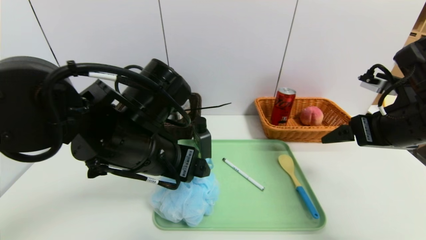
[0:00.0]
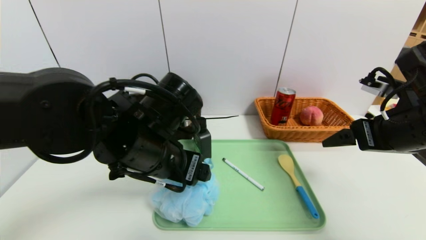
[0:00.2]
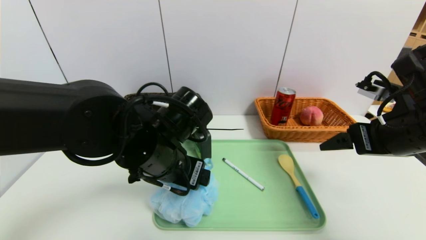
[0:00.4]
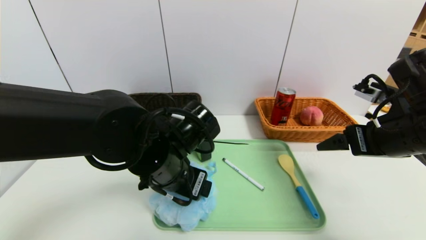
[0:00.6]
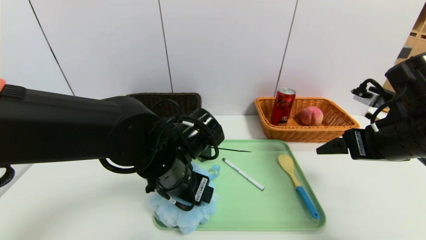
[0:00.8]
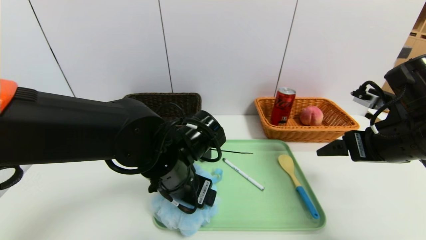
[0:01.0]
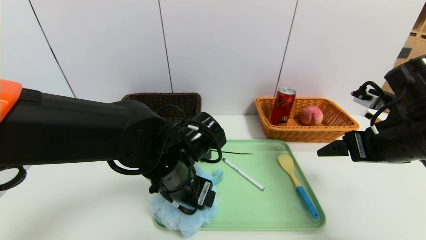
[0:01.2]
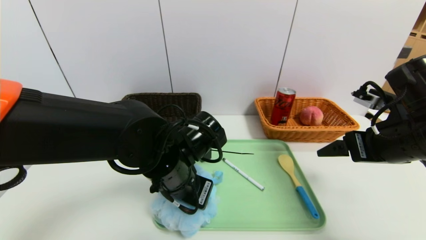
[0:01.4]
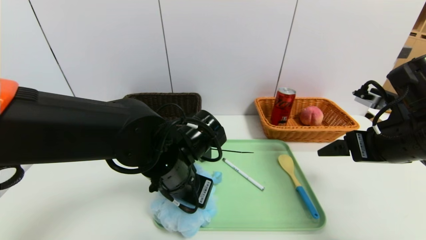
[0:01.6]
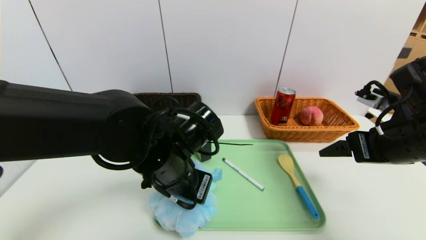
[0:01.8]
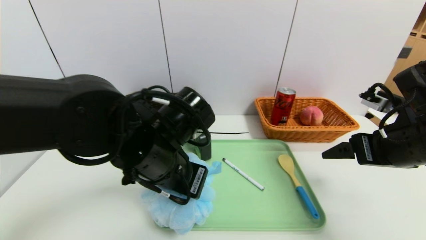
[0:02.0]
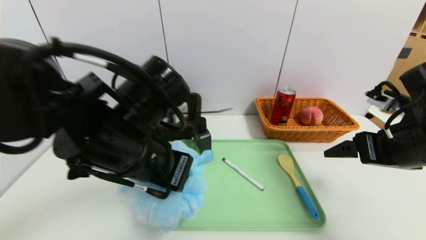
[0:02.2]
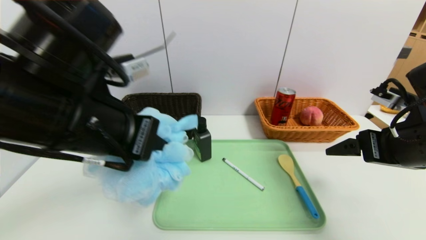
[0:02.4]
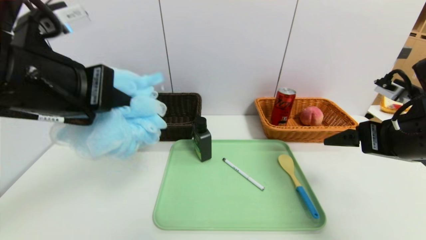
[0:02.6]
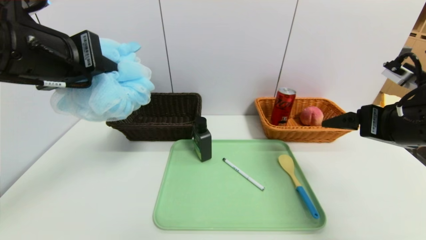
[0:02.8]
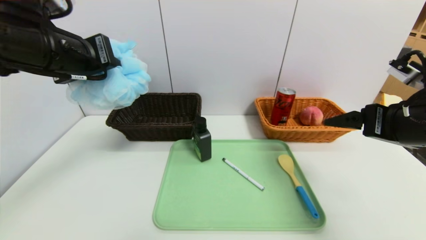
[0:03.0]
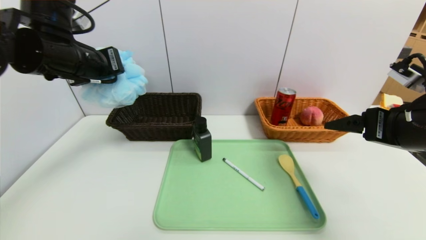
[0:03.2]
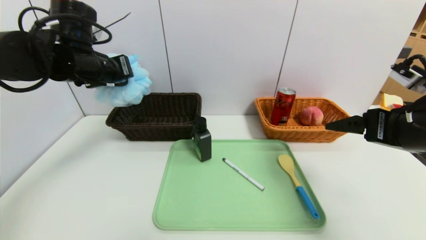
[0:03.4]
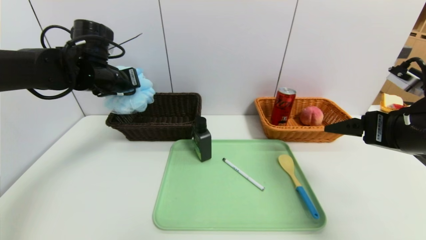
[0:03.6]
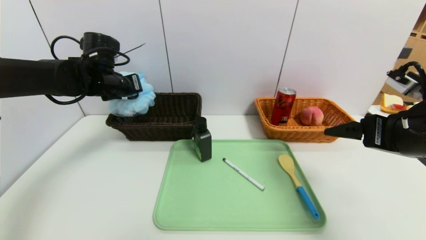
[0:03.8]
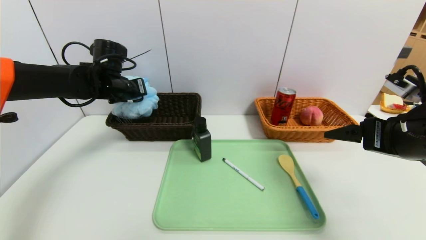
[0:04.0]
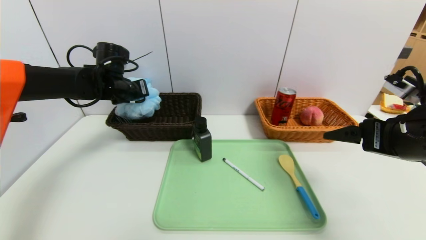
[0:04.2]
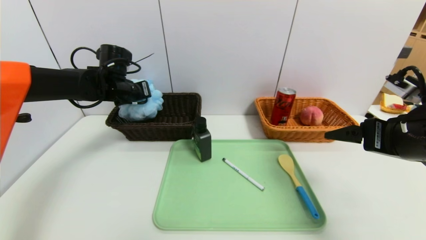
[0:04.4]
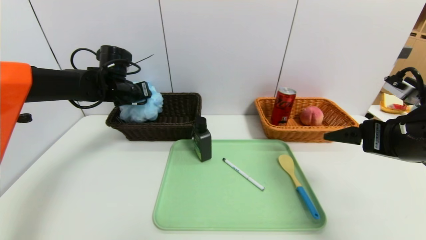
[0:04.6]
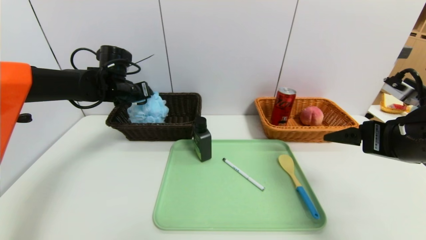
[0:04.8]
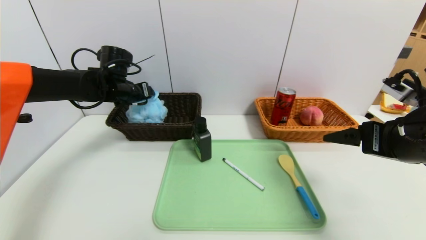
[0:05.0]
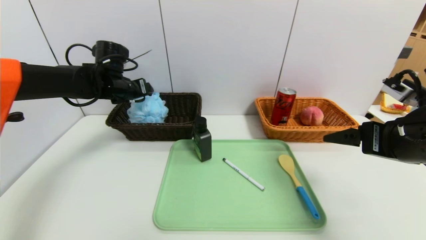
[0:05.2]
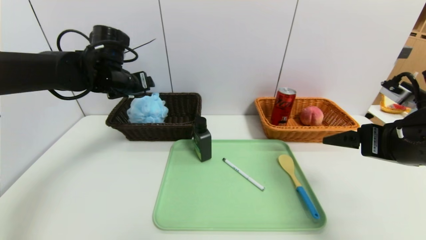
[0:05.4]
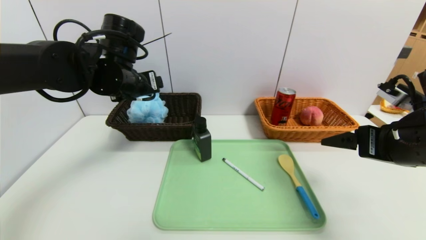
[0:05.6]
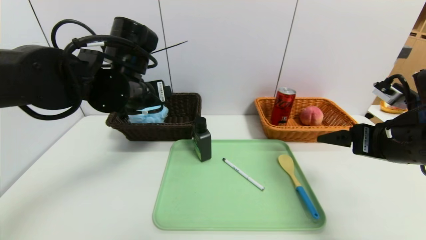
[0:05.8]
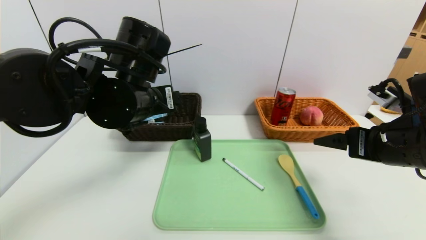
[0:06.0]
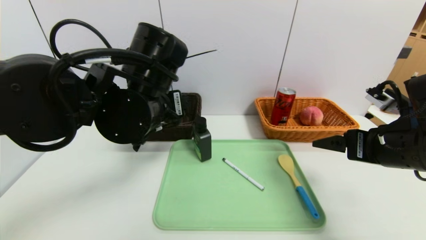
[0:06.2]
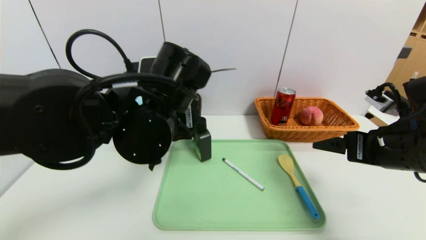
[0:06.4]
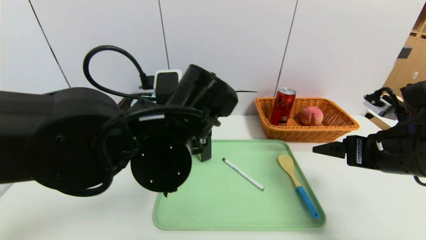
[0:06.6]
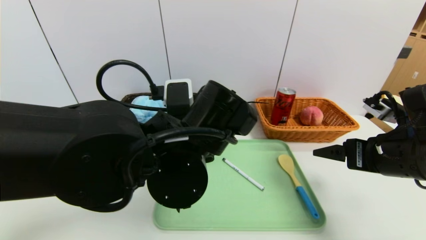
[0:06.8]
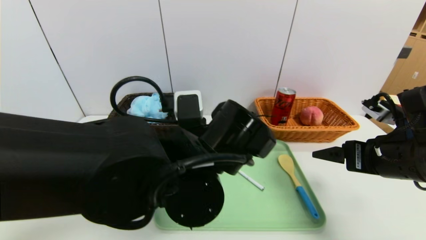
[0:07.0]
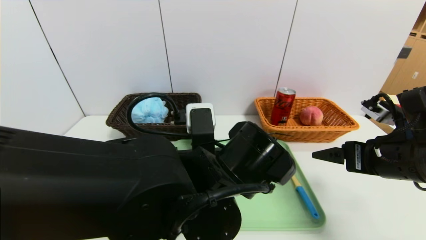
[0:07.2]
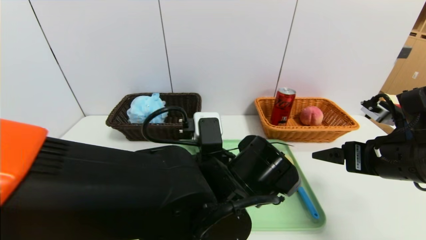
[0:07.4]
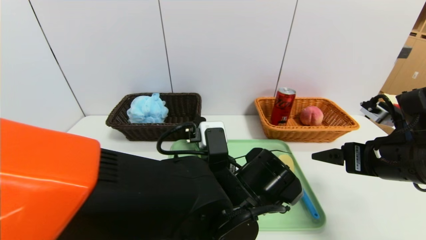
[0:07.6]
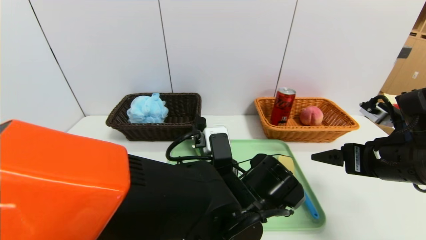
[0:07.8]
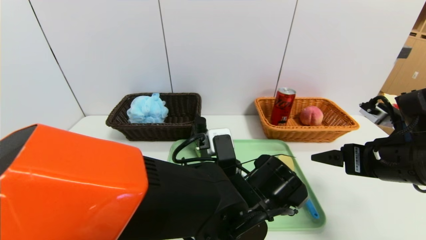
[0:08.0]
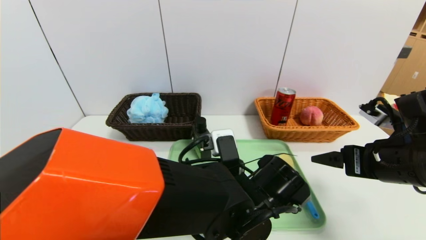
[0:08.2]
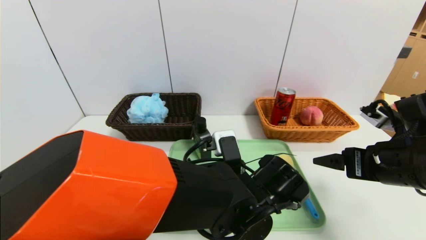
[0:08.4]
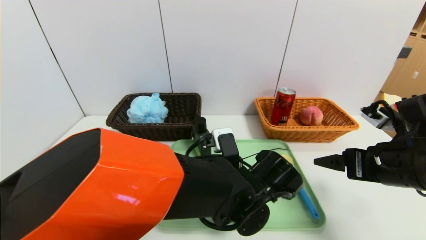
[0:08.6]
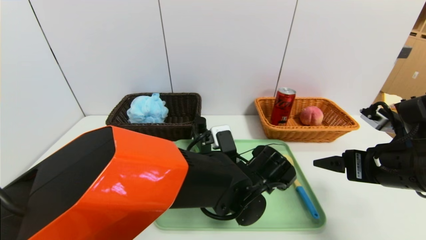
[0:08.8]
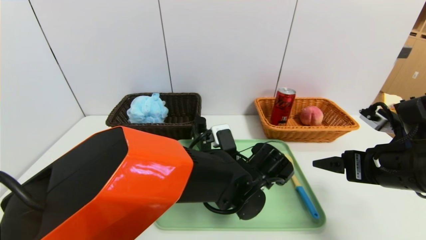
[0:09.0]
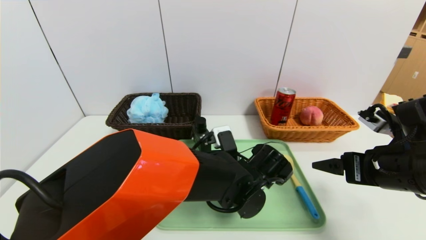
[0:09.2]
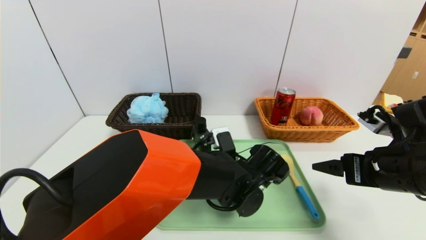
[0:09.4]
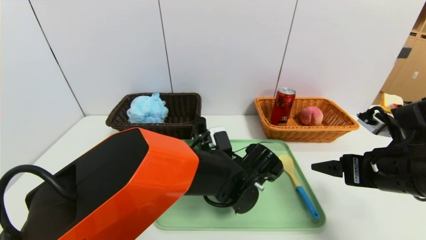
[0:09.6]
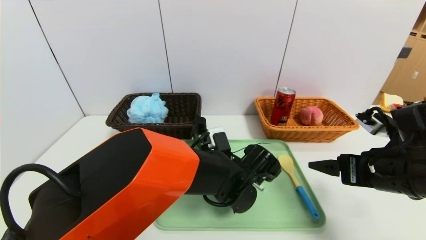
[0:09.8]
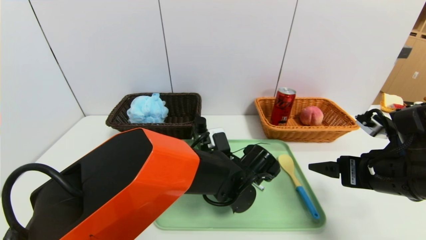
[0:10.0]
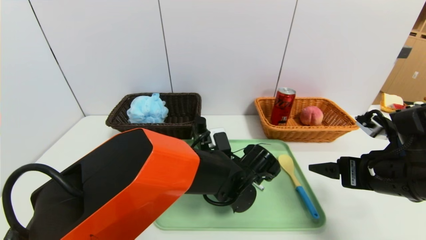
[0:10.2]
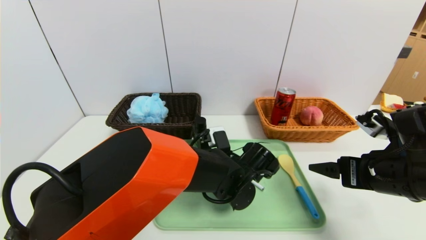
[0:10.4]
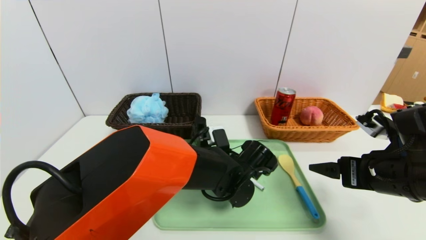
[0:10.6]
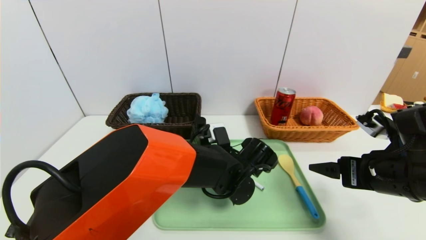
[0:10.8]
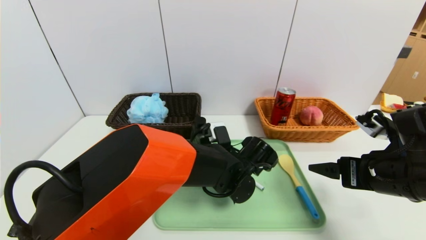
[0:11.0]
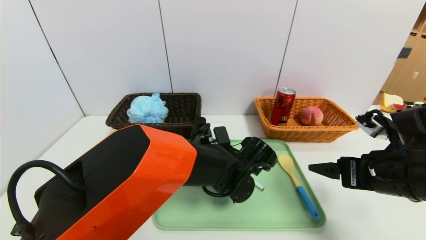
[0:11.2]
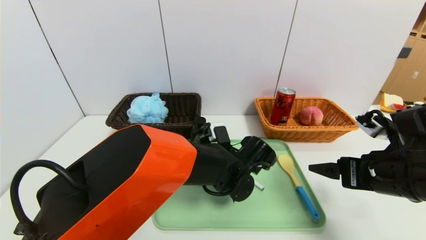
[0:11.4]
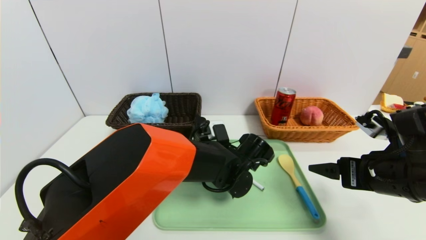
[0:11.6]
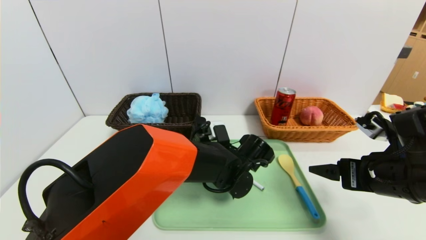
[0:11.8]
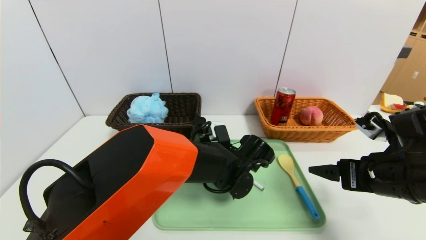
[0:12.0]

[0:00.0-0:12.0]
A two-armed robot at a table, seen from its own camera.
Task of the whole recording: place the food in the right basket with the right gripper, and place the non food items in the left basket with the left gripper.
Step, 0:00.0 to 0:05.0: Grasp the bath ball and put it in the left basket.
0:00.0 to 0:01.6: The left gripper shifts approximately 5 cm downward, and closes up.
0:01.6 to 0:03.0: The left gripper shifts about 25 cm upward and to the left.
0:03.0 to 0:04.4: The left gripper goes some 20 cm forward and downward.
0:04.4 to 0:06.0: The left gripper moves backward and to the right, roughly 20 cm, and opens.
0:06.0 to 0:07.6: The left gripper is displaced to the right, downward and backward by roughly 20 cm.
0:07.6 to 0:09.0: The left gripper goes roughly 5 cm forward.
0:09.0 to 0:12.0: The grippers make only small movements.

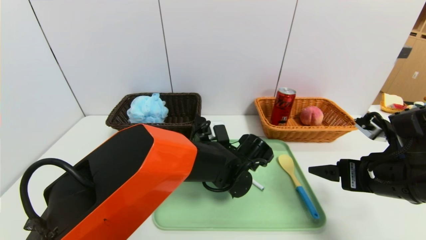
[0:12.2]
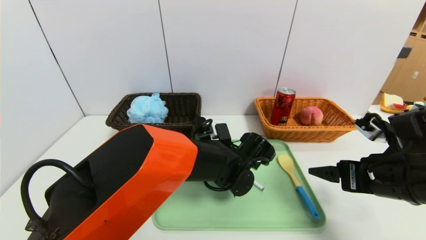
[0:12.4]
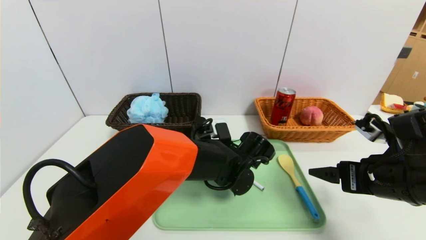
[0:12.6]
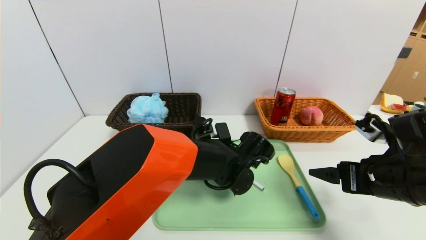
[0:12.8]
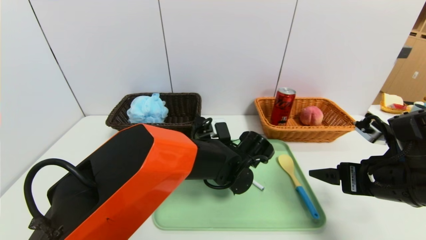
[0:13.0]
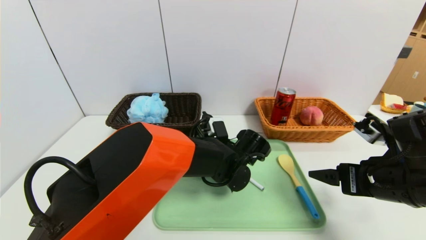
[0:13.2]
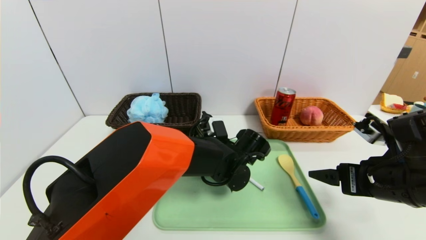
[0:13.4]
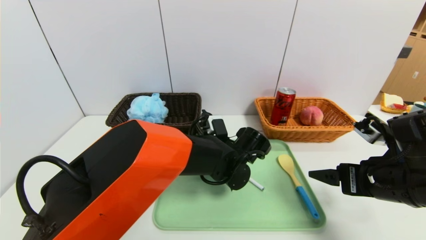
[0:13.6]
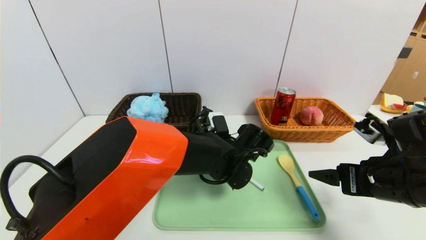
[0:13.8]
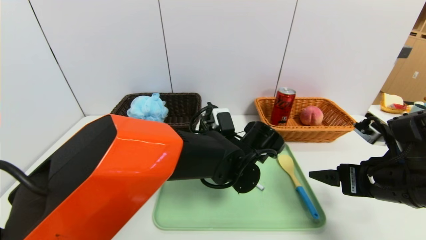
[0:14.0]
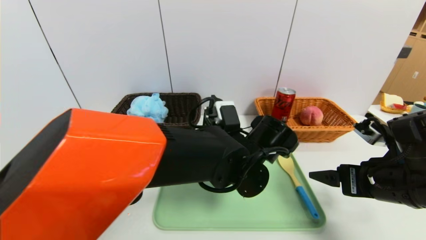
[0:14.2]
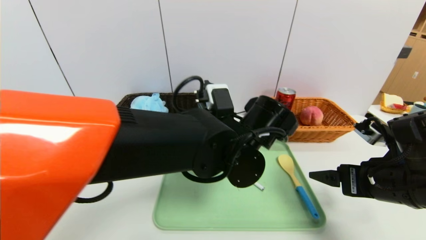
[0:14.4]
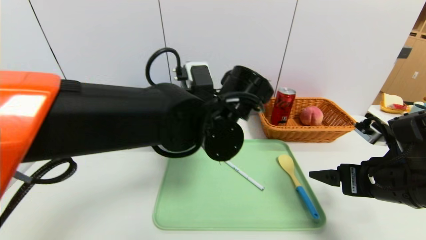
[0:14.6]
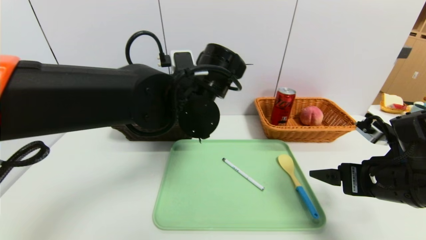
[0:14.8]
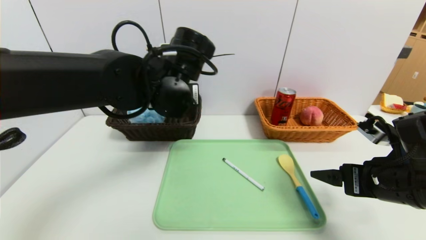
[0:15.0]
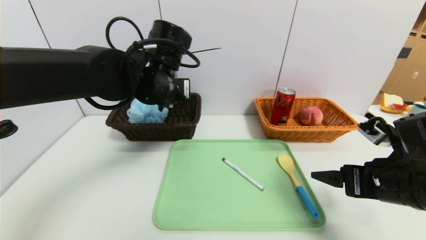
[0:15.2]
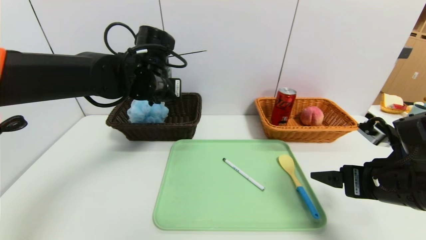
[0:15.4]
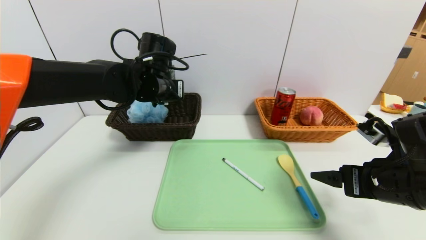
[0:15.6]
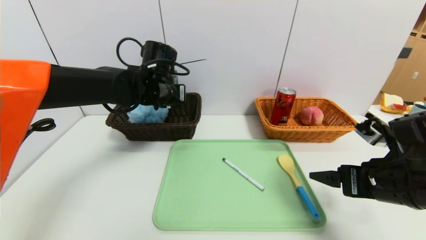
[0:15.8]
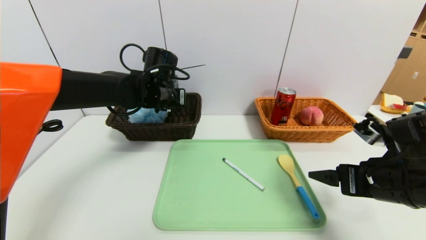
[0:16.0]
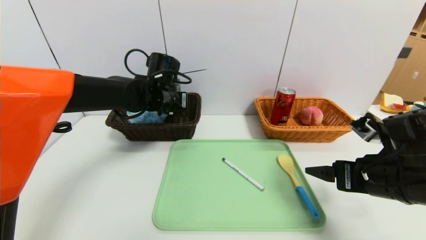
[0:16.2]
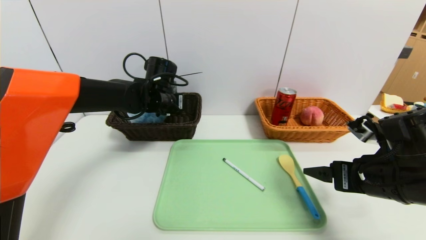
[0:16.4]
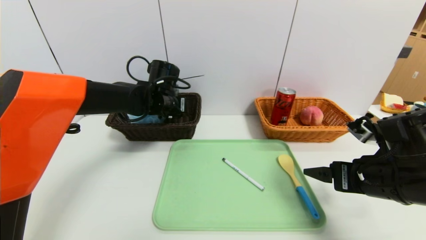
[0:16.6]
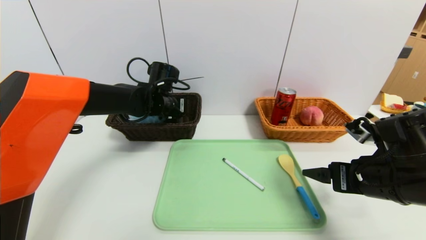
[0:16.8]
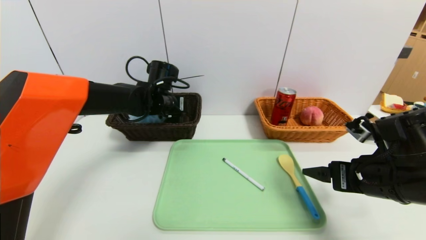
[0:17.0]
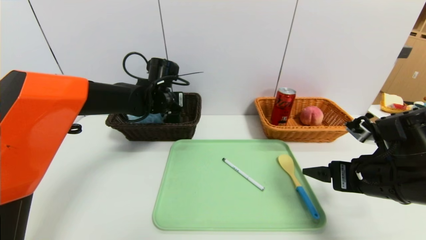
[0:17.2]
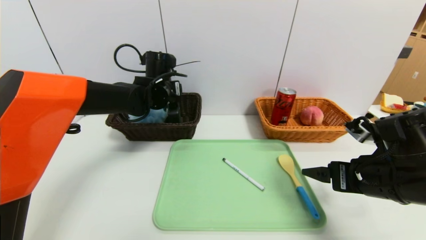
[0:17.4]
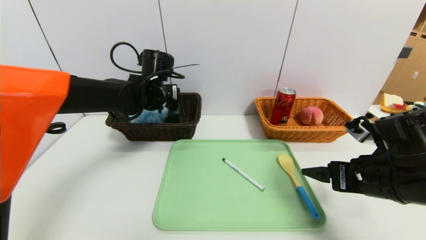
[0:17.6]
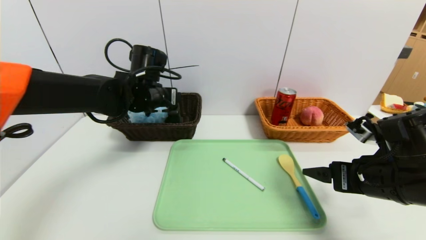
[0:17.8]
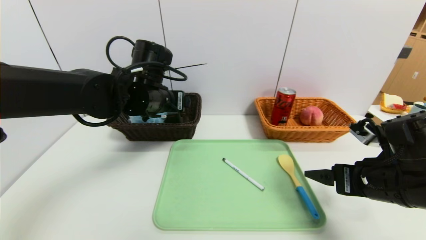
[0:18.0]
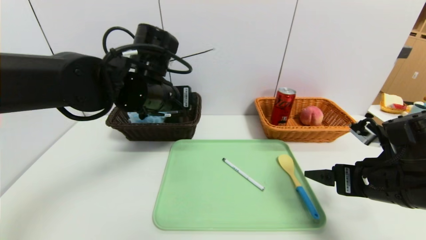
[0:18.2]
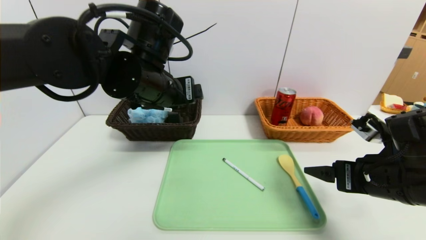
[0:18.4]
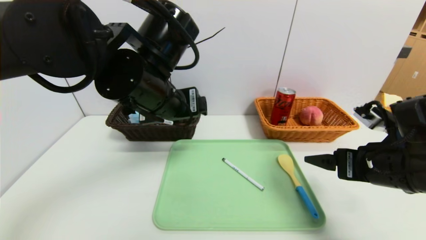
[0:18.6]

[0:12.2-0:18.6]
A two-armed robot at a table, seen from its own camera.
Task of the whole recording: place the food in the right basket with the right gripper, and place the non food items in the left basket with the left gripper.
Step, 0:12.2 to 0:17.8: Grasp the soft cleanser and put it in the left basket.
0:12.2 to 0:13.8: The left gripper closes up.
0:13.8 to 0:15.4: The left gripper travels to the left and upward by some 20 cm.
0:15.4 to 0:17.0: The left gripper goes some 10 cm downward and forward, and opens.
0:17.0 to 0:18.6: The left gripper shifts approximately 20 cm backward and upward.
